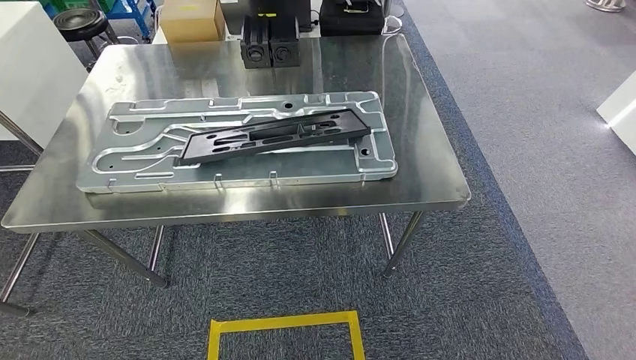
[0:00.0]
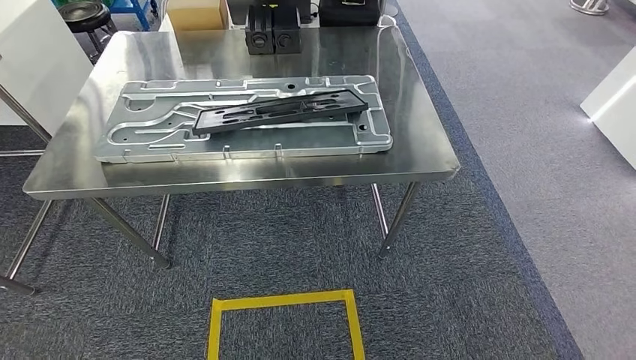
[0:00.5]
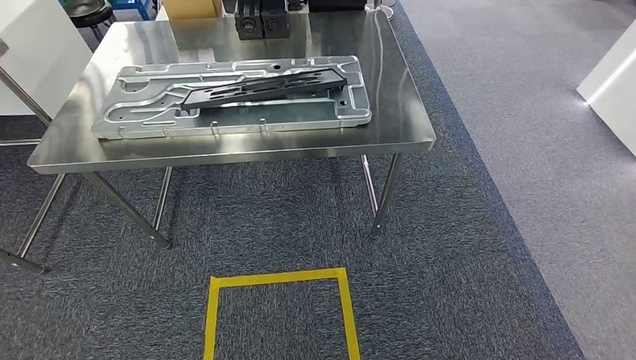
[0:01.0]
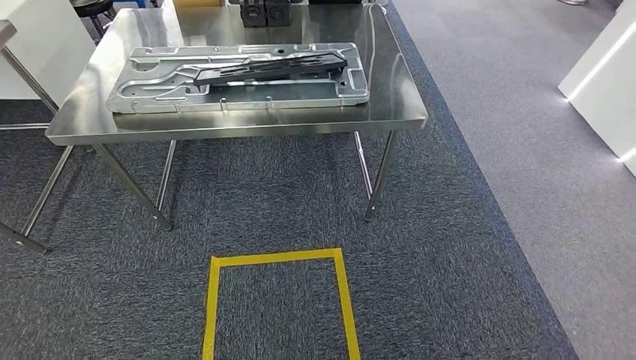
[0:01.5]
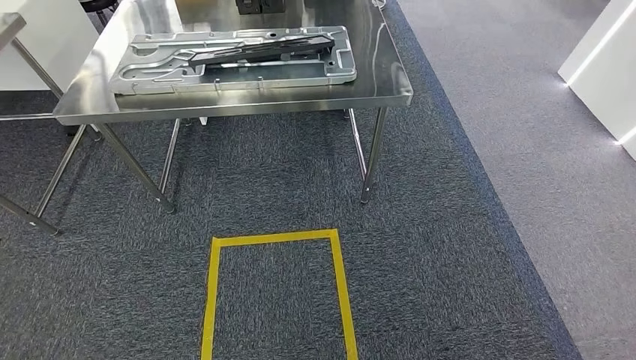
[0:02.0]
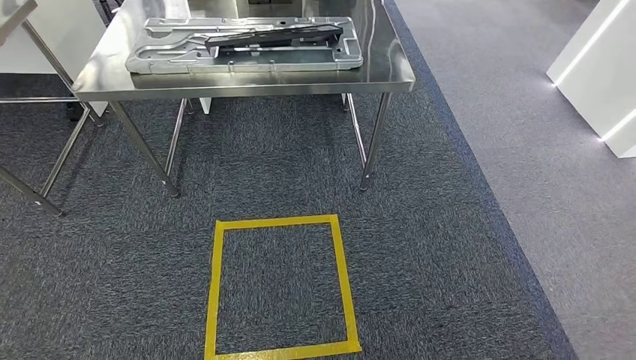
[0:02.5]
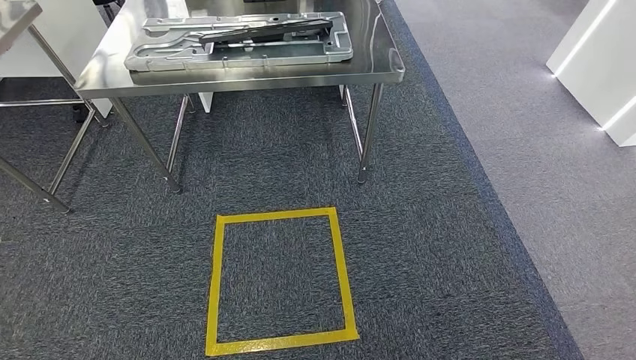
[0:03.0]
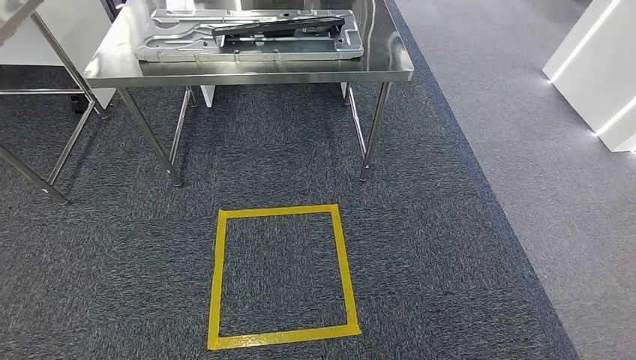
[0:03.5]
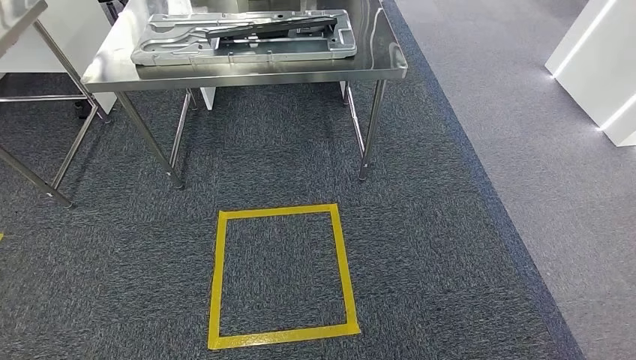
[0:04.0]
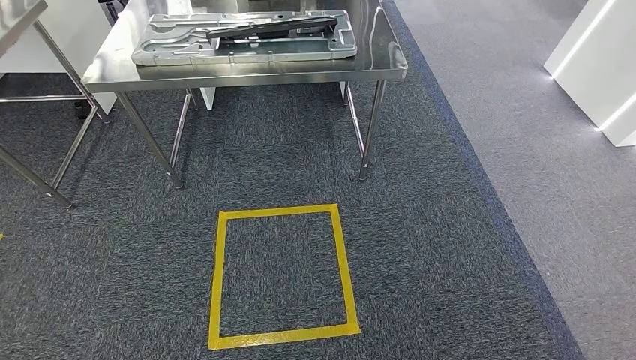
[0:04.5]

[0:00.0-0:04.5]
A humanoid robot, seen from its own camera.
Step, 0:00.0 to 0:04.5: Move to the initial position of the shelf.
0:02.0 to 0:04.5: The hands move only a little.
